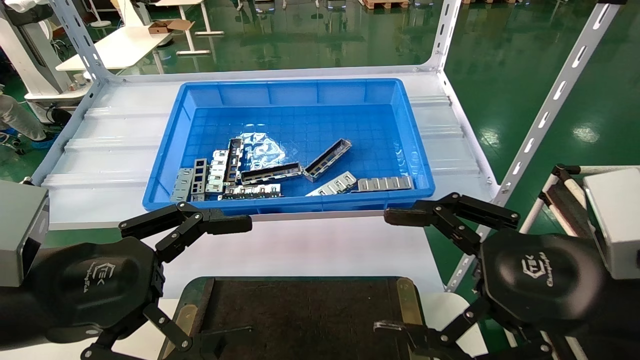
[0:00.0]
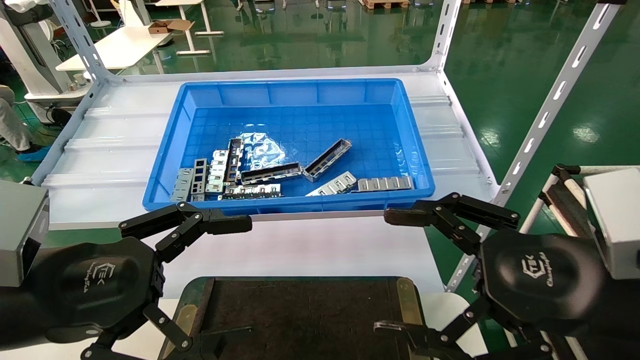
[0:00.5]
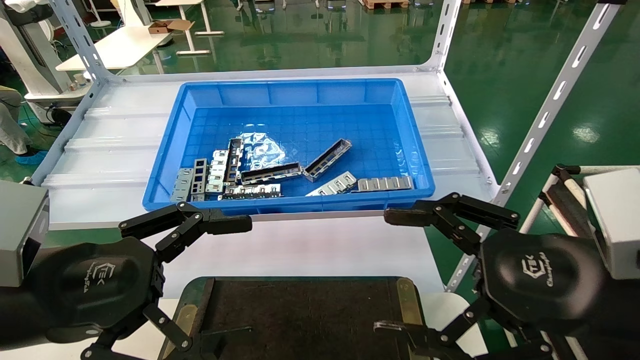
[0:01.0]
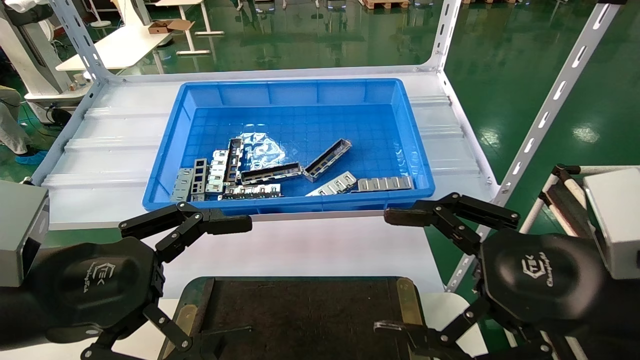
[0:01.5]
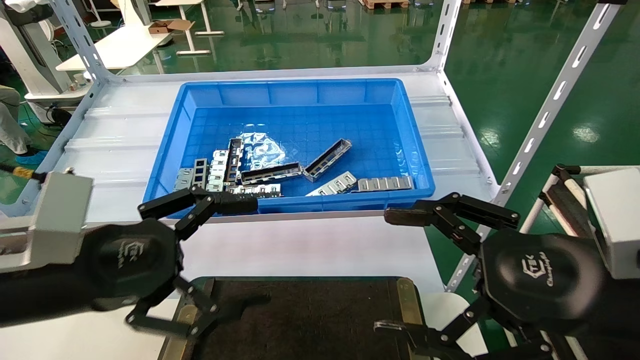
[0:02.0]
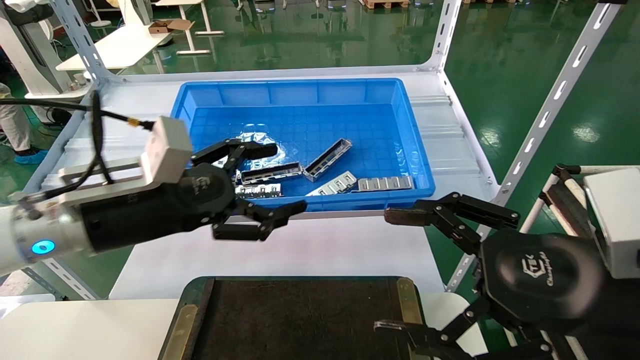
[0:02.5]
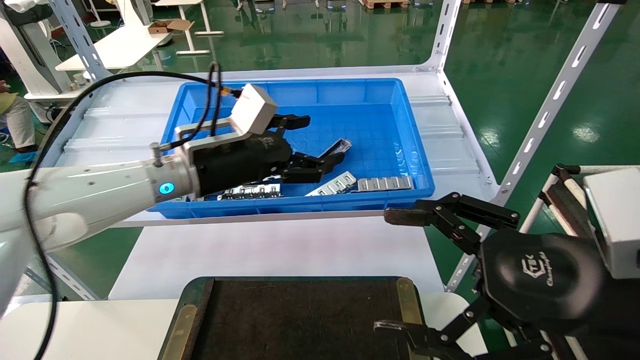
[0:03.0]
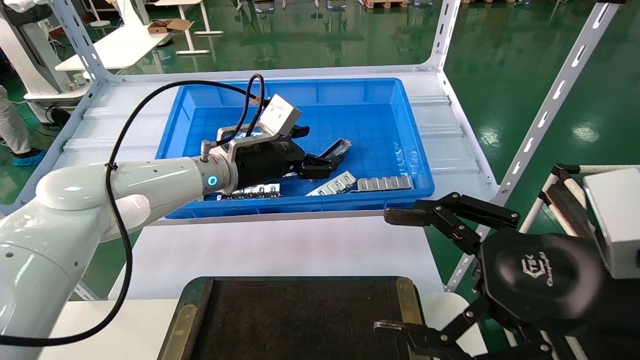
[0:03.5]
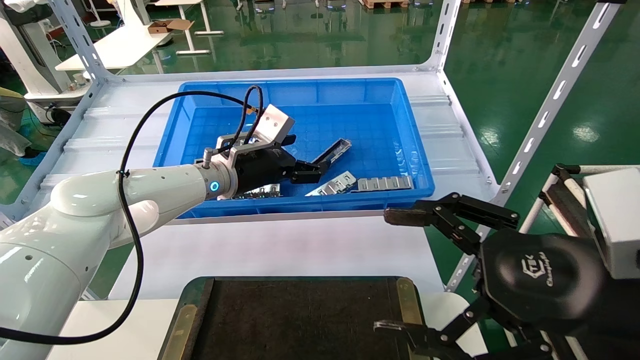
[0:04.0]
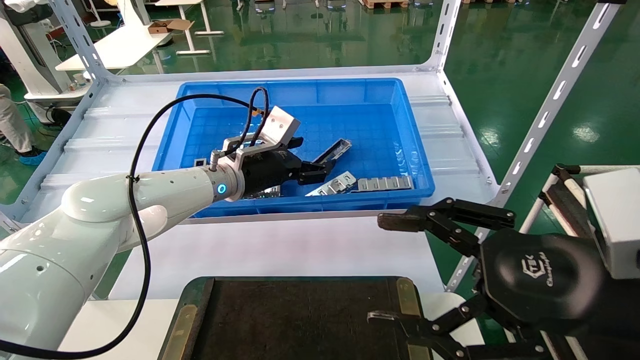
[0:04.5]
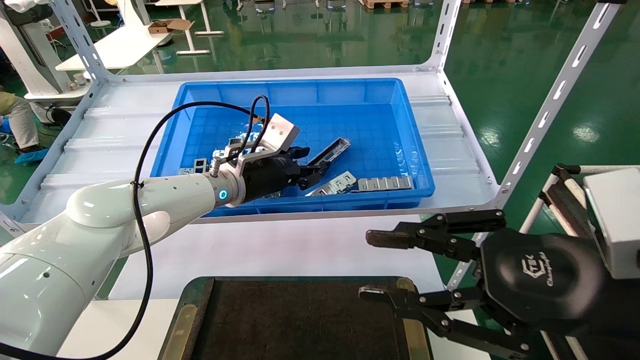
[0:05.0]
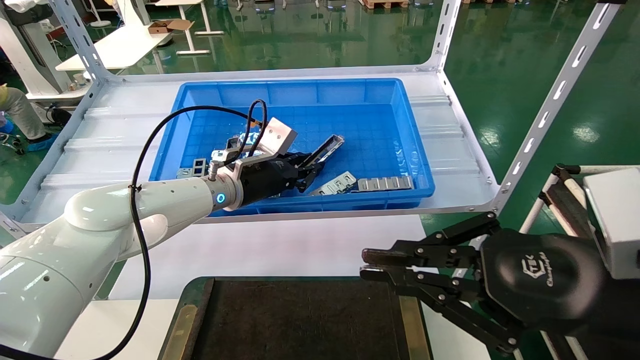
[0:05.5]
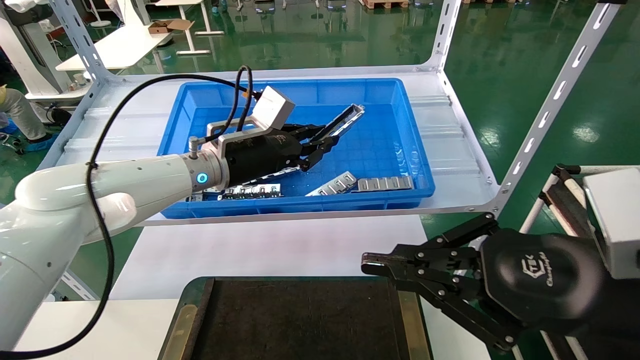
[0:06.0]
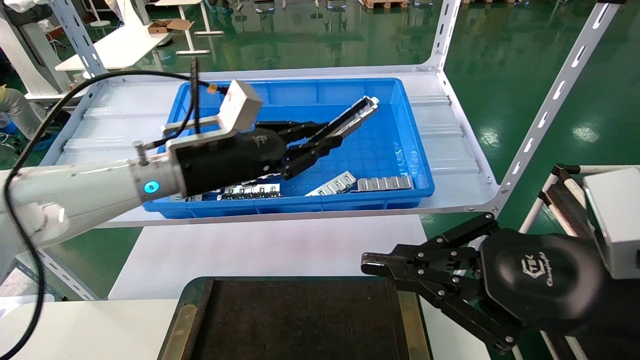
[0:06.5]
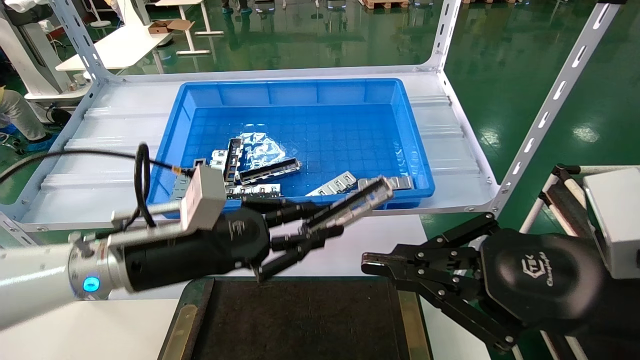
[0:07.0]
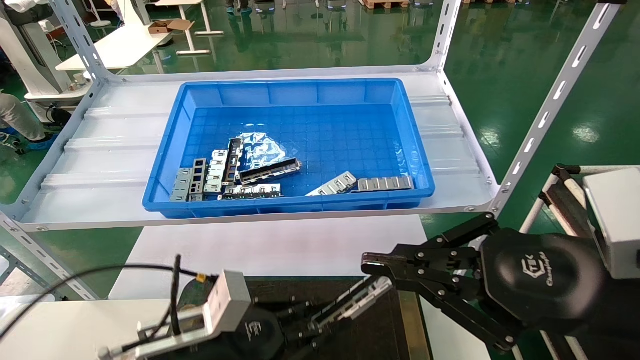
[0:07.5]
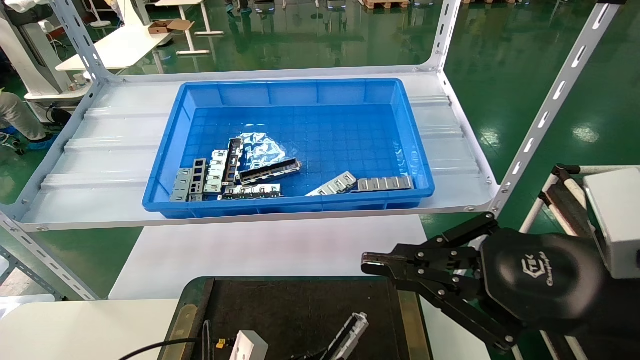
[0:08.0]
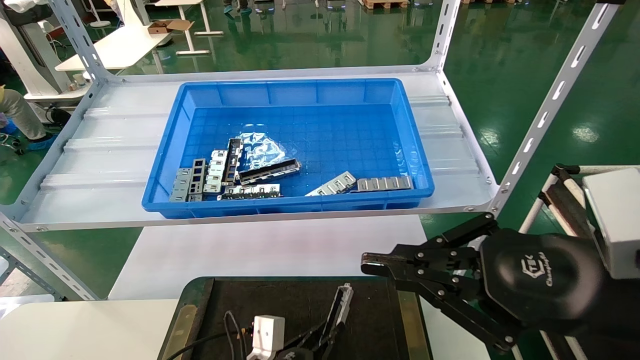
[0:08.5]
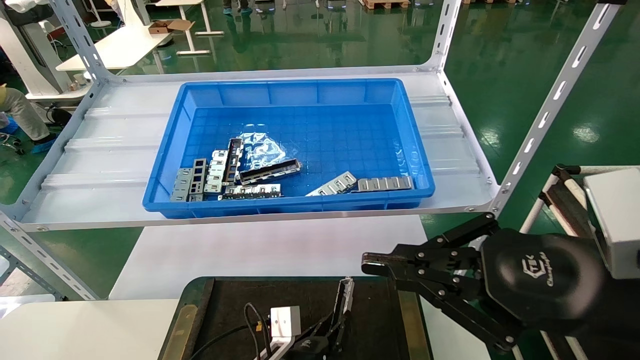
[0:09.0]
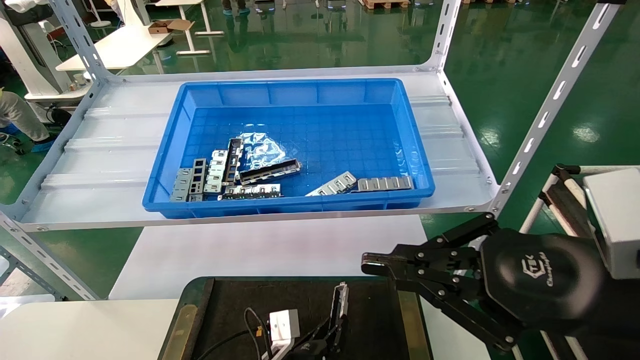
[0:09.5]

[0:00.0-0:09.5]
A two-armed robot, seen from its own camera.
Task of the whole recording: Grasp the part with one hand and place it on the black container.
Step, 0:02.0 to 0:05.0: Pick up the front USB bracket from the feeding area.
0:00.0 to 0:02.0: The grippers stay close to where they were, moving slightly.
0:02.0 to 0:04.0: The left gripper goes approximately 30 cm forward and to the right.
0:04.0 to 0:05.5: The left gripper closes. The right gripper closes.
0:05.5 to 0:07.5: The left gripper heads backward and downward, covering roughly 25 cm.
0:07.5 to 0:09.5: The left gripper moves downward, to the right and forward, some 20 cm.

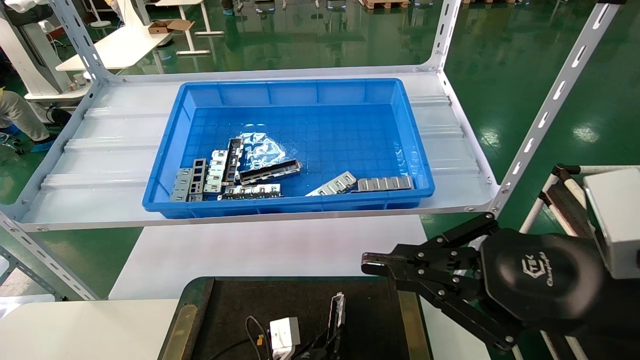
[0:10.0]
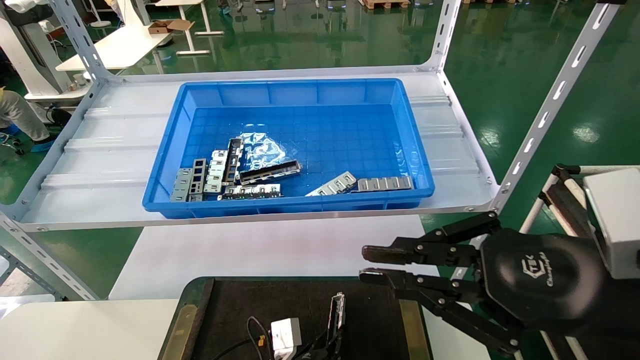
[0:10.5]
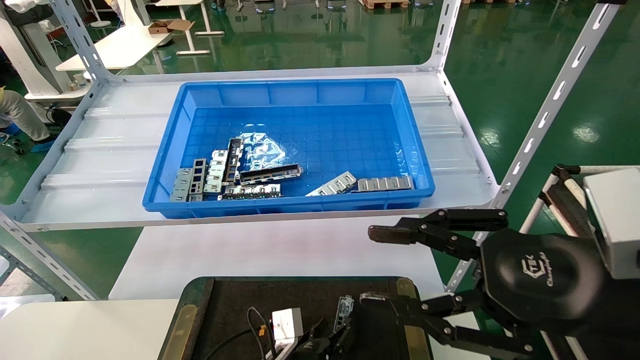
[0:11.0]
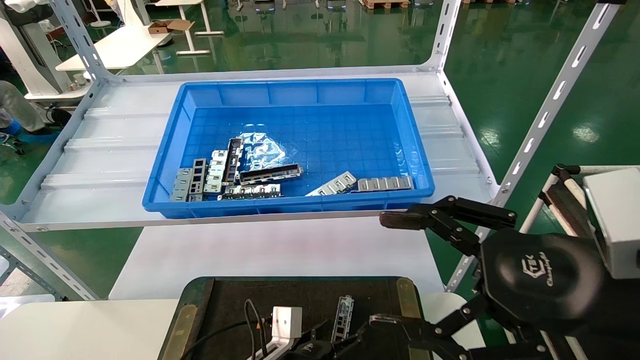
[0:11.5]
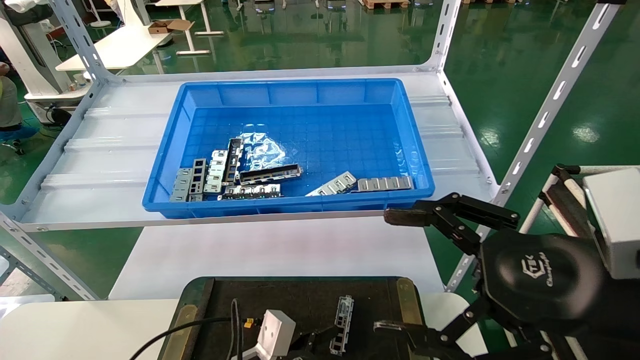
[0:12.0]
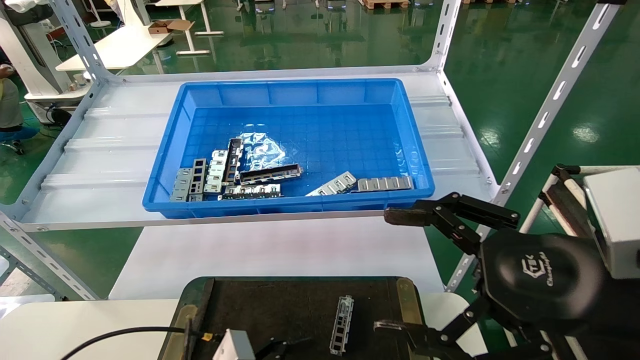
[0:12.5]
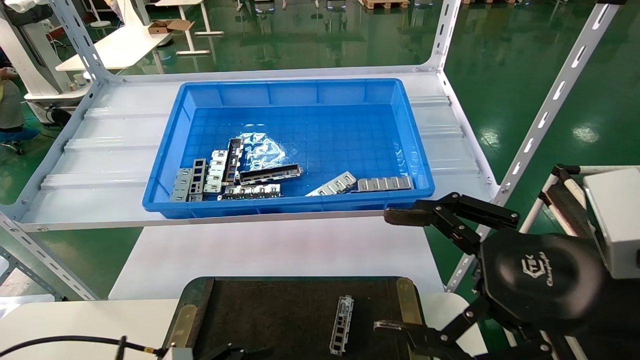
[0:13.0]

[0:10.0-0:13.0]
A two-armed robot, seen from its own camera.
Task of the whole recording: Grasp the part with one hand and place it on the black container.
0:10.0 to 0:11.5: The right gripper opens up; the left gripper shifts by approximately 5 cm, and opens up.
0:11.5 to 0:13.0: The left gripper heads to the left and backward, covering some 20 cm.

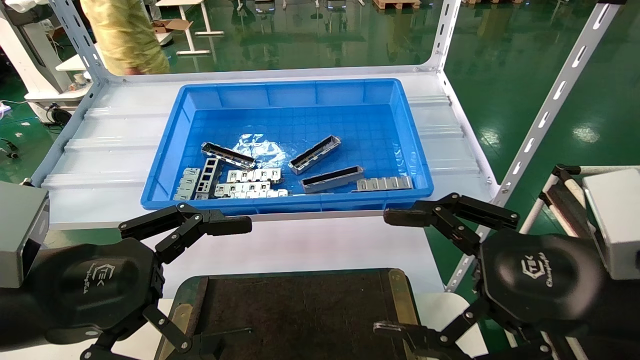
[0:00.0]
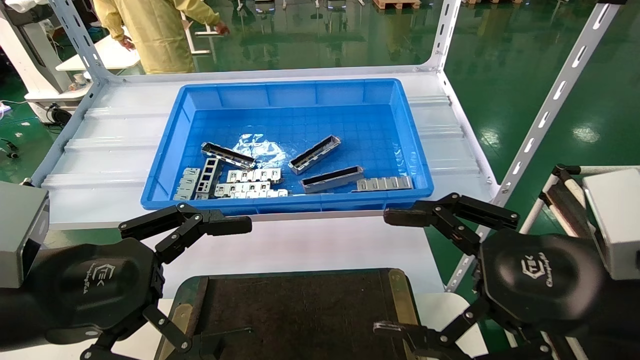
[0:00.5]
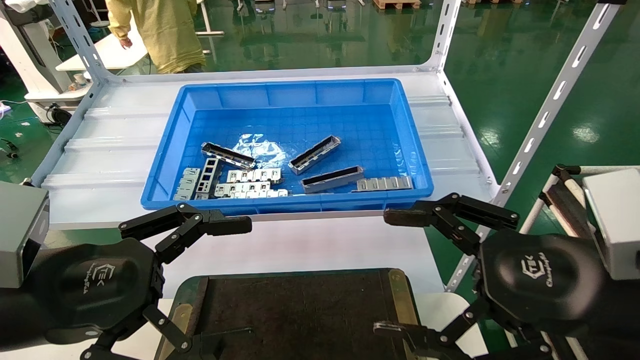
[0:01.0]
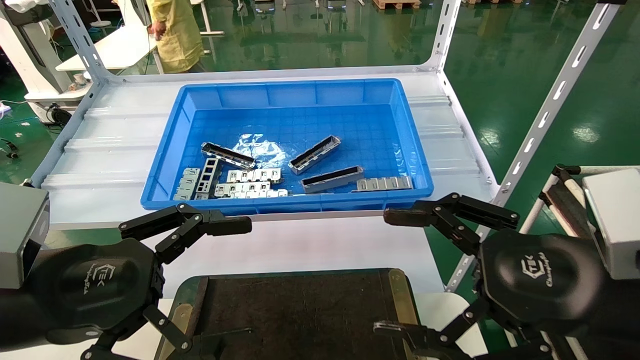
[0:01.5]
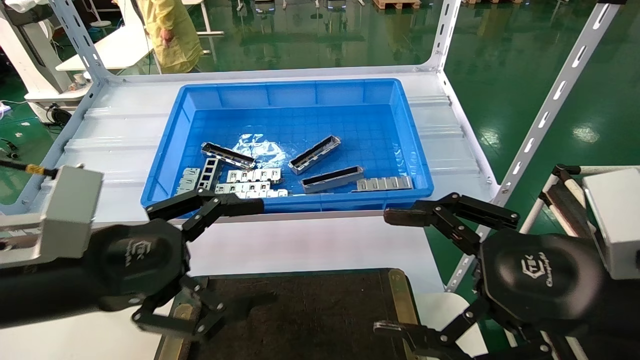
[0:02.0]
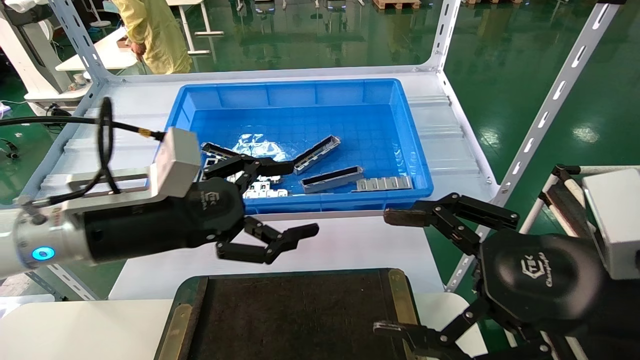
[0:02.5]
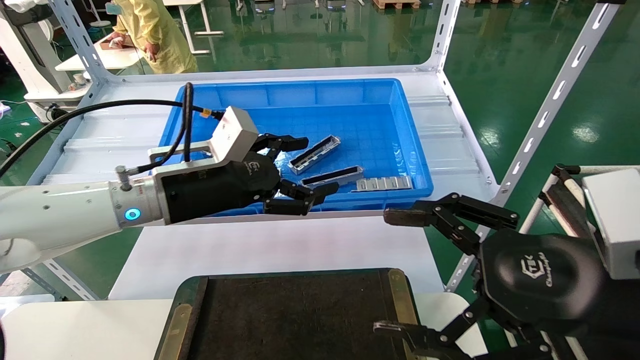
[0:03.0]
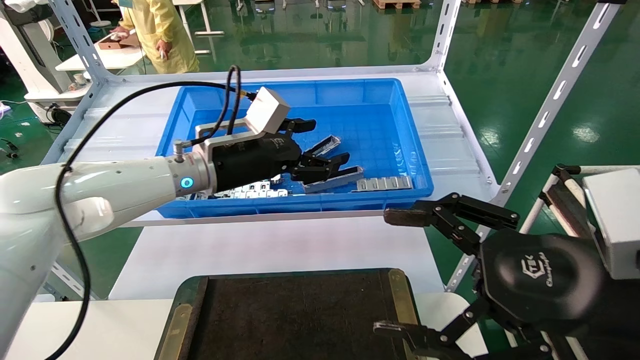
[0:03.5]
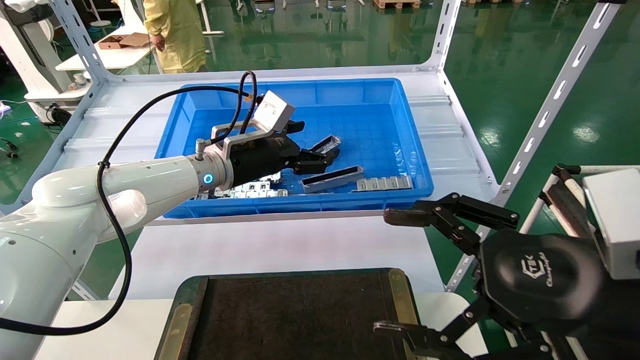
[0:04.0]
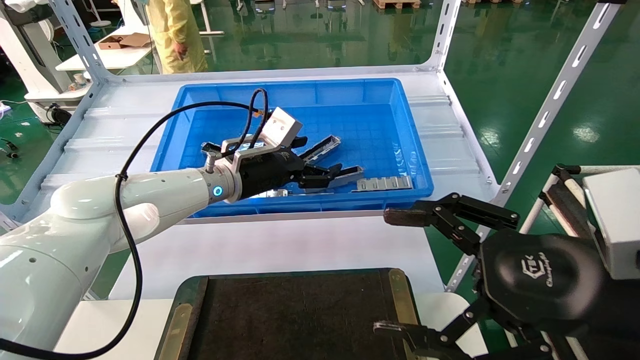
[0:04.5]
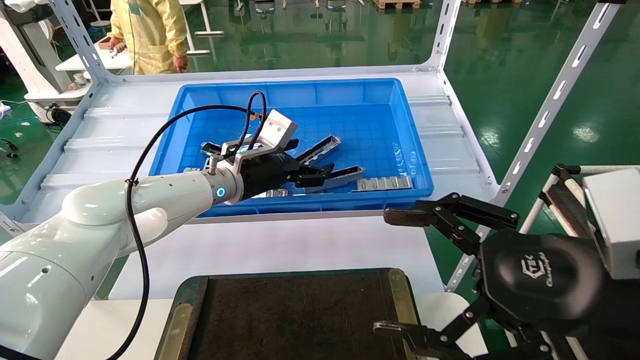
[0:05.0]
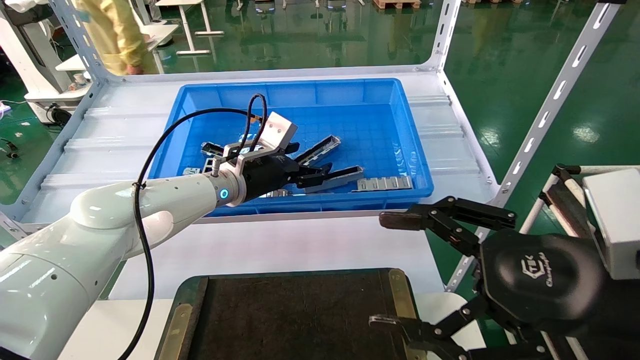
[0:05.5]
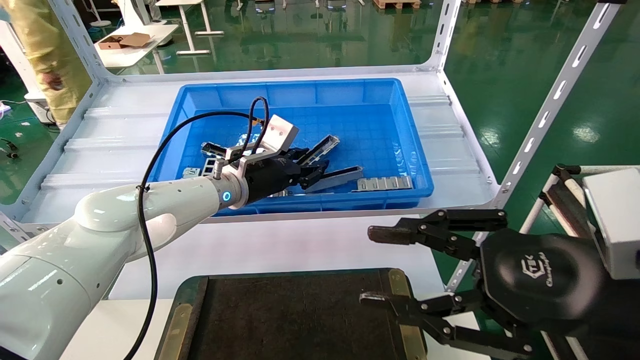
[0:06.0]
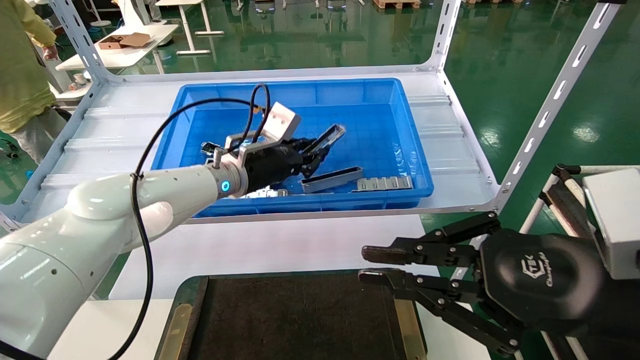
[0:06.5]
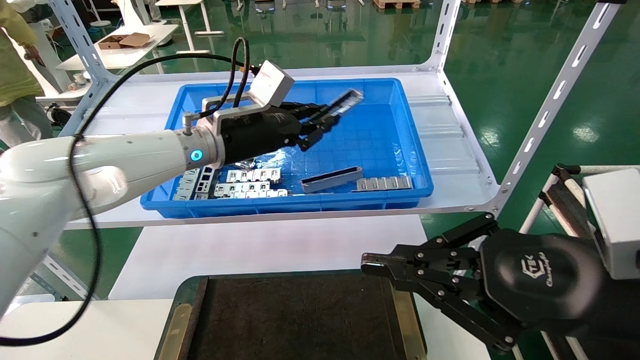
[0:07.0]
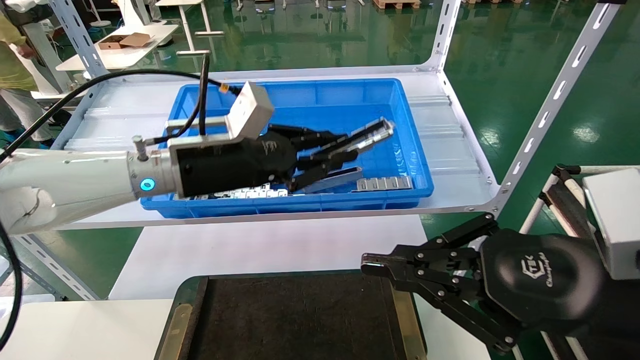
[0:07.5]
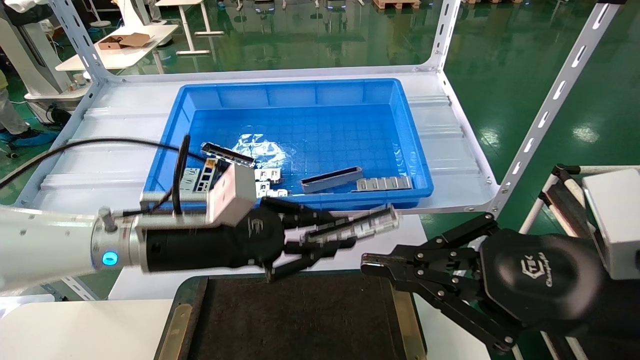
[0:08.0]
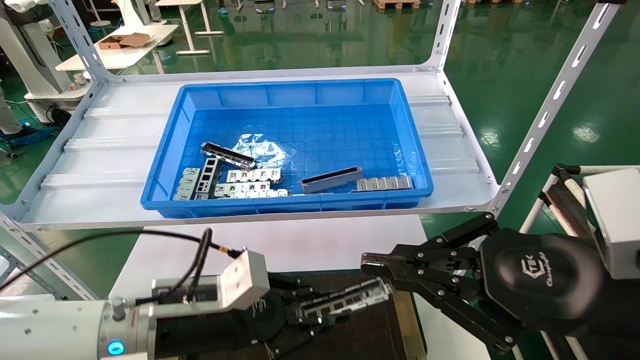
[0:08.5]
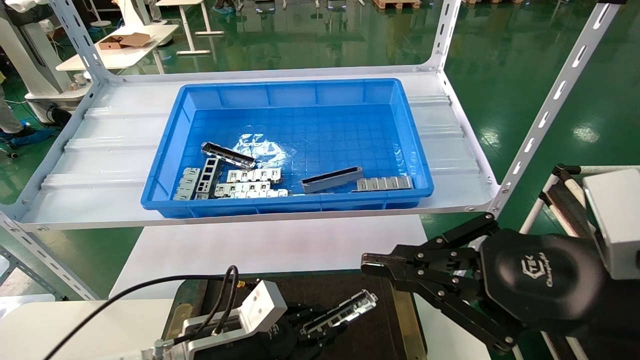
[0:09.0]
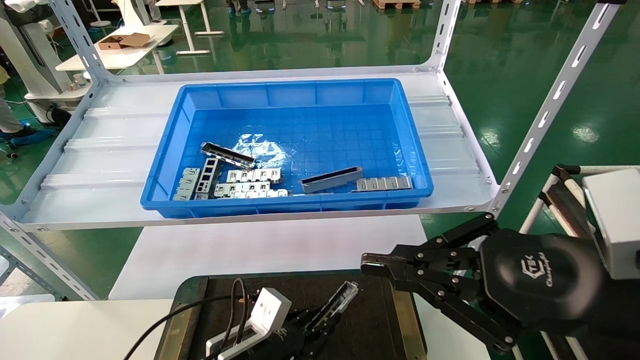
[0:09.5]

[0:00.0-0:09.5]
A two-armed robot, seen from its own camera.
Task of the whole recording: Grasp the part with one hand and place it on the black container.
Step, 0:02.0 to 0:06.0: Pick up the front USB bracket from the feeding area.
0:00.0 to 0:02.0: There are only small adjustments of the grippers.
0:02.0 to 0:04.0: The left gripper goes some 25 cm forward and to the right.
0:04.0 to 0:05.5: The grippers make only small movements.
0:05.5 to 0:07.5: The left gripper is displaced backward and upward by approximately 10 cm, and closes its fingers; the right gripper closes.
0:07.5 to 0:09.5: The left gripper goes about 30 cm downward.
